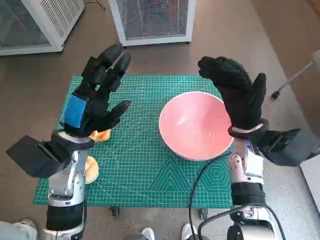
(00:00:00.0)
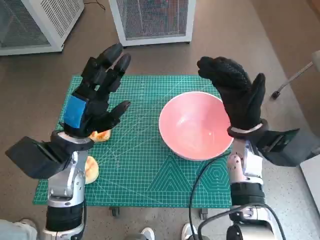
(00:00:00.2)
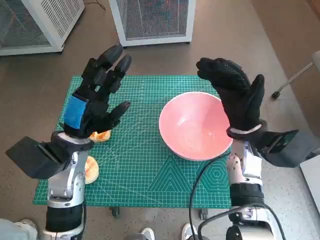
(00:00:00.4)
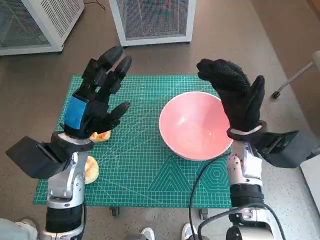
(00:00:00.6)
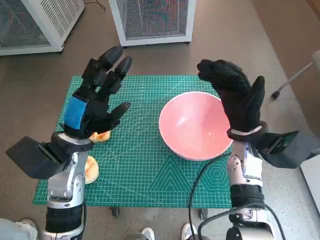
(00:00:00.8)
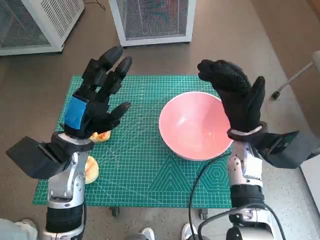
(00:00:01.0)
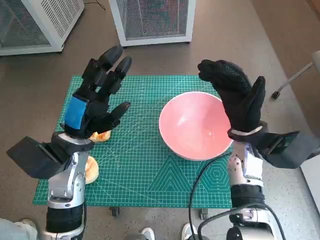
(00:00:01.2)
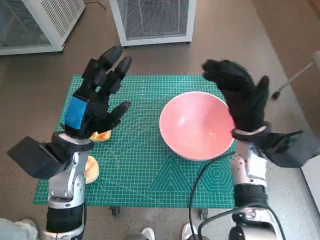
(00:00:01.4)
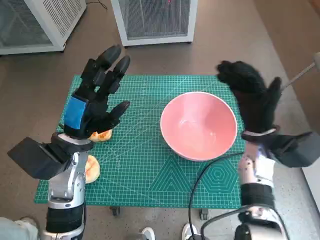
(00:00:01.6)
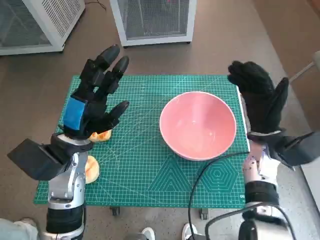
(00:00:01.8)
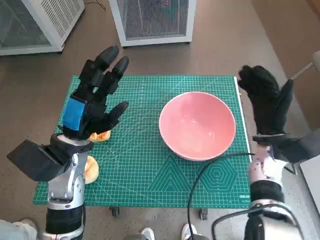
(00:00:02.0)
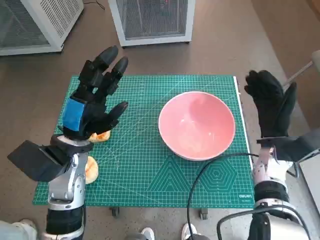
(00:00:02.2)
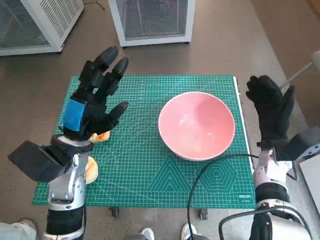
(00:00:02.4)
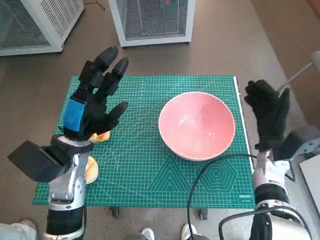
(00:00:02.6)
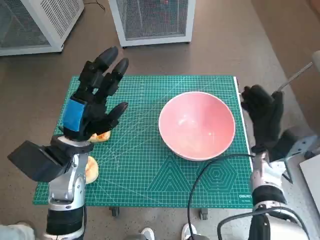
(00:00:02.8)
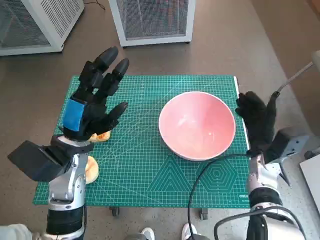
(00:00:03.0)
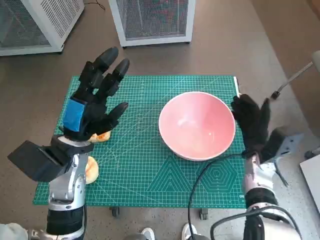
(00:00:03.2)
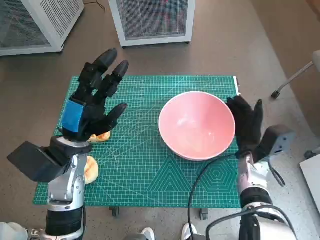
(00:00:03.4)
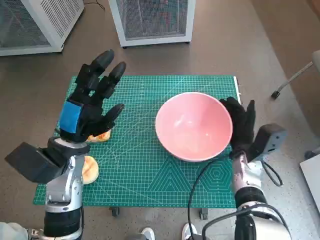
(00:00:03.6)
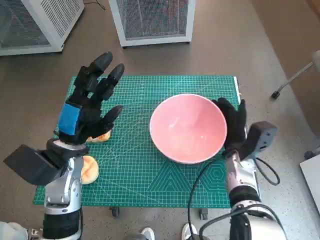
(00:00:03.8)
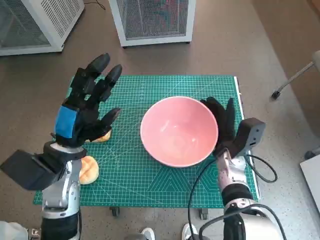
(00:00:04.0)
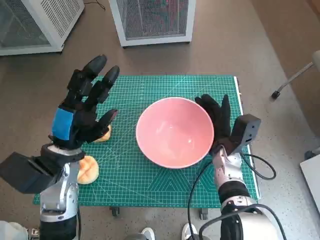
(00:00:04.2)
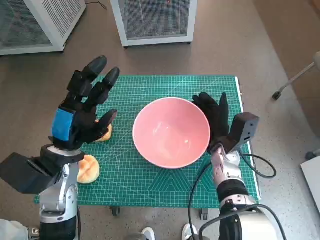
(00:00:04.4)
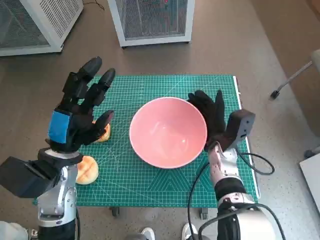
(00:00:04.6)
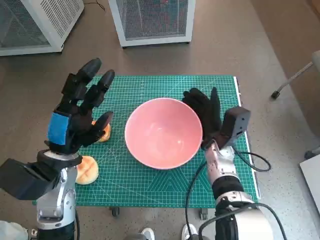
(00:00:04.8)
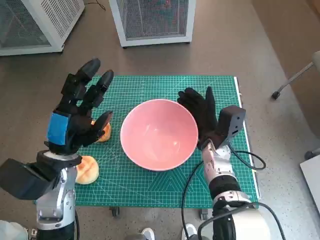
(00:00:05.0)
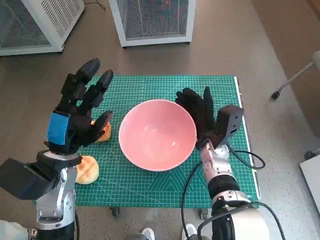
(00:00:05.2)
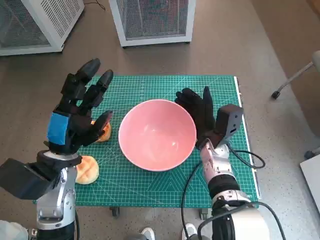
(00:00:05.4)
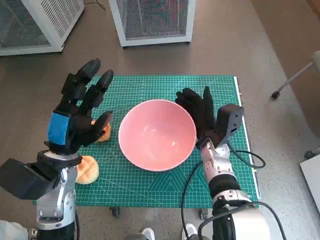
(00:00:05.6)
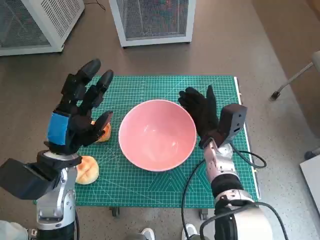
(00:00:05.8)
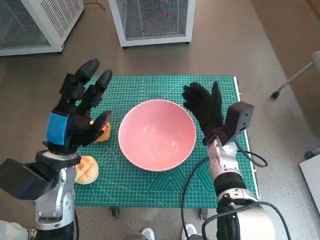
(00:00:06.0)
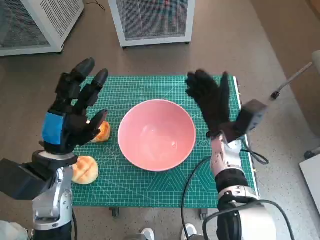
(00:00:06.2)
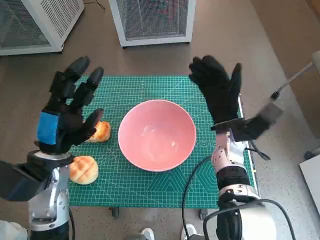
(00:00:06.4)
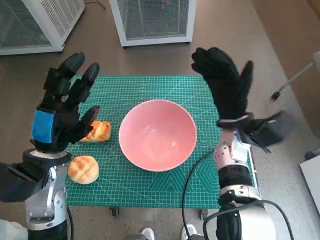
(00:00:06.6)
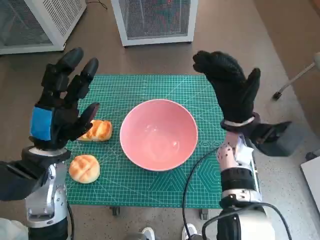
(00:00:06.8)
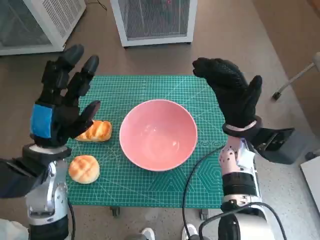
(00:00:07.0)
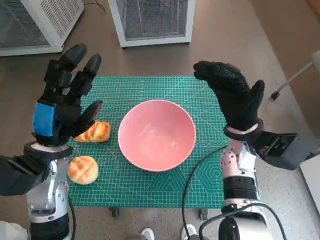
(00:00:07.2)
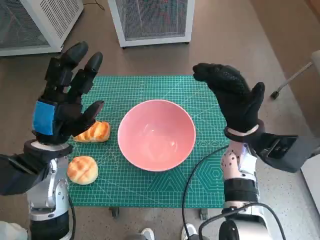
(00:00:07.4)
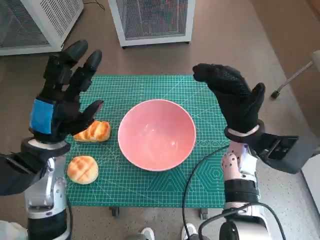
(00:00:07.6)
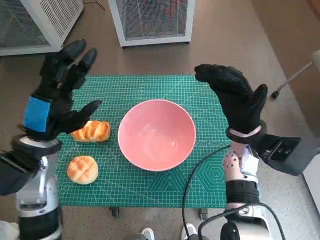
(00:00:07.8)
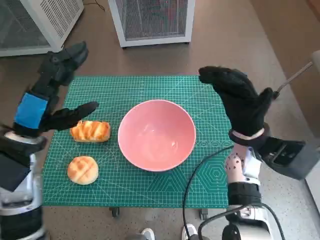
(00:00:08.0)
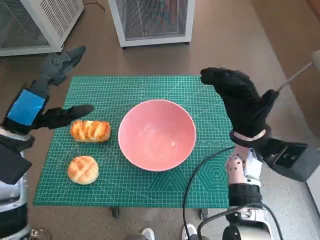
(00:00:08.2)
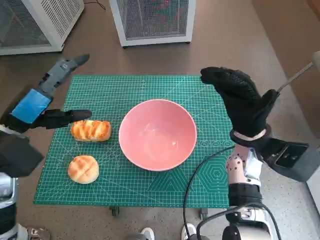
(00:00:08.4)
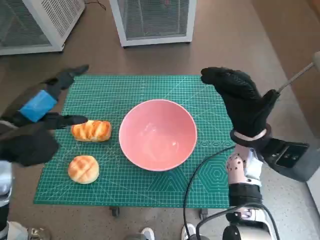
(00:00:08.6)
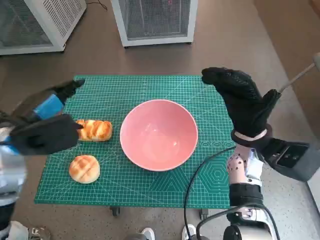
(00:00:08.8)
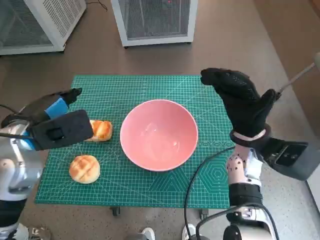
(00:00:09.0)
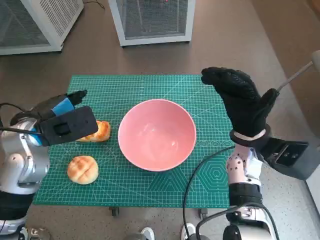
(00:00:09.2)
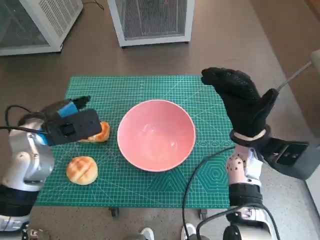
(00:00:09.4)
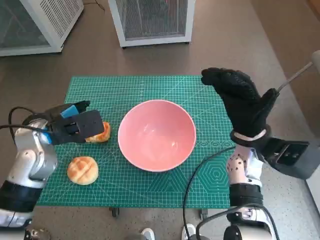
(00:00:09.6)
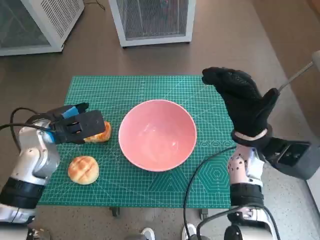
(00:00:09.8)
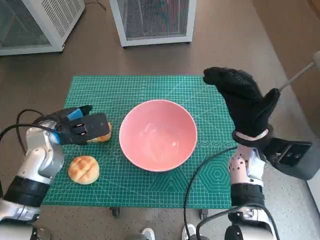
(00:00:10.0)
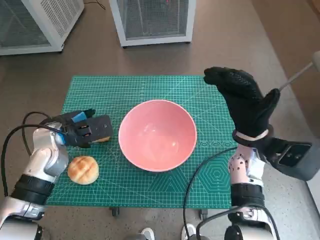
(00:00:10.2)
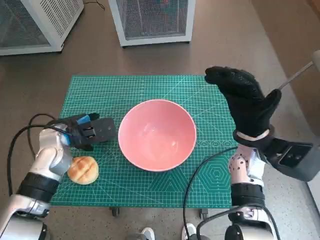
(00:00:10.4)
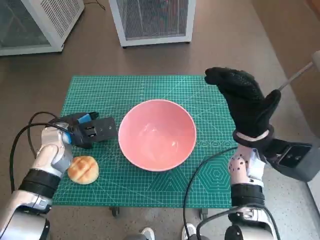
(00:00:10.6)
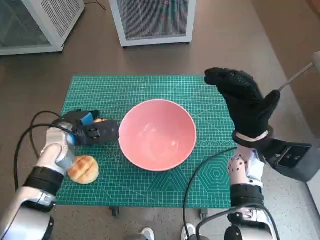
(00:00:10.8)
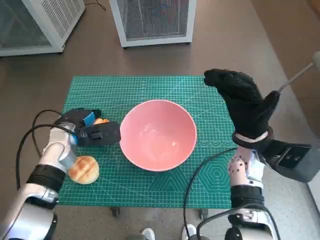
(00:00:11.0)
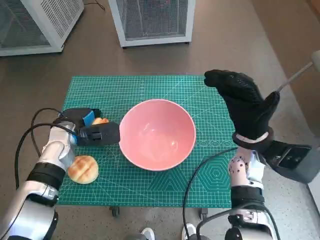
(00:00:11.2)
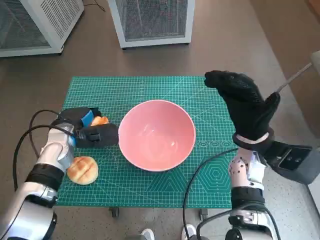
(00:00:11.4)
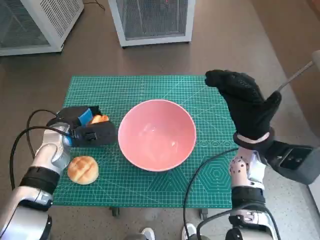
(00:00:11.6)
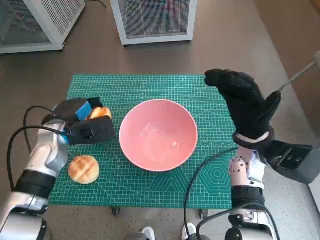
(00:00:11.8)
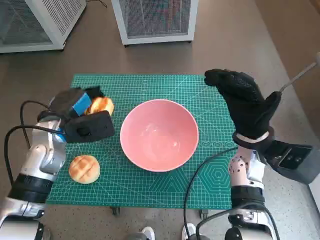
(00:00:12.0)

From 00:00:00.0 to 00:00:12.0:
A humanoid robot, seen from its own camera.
Task of the whole recording: Push the bowl into the center of the table and put the bread into the bowl.
Step, from 00:00:00.0 to 00:00:06.0: Move the pink bowl to the center of table with right hand.
Step, from 00:00:06.2 to 00:00:10.8: Grasp the long bread with left hand.
From 00:00:01.6 to 00:00:03.0: The right hand shifts about 5 cm downward.
From 00:00:03.0 to 00:00:04.4: The right hand travels to the left by roughly 10 cm.
From 00:00:06.0 to 00:00:07.6: The right hand goes approximately 5 cm upward.
From 00:00:07.6 to 00:00:09.0: The left hand moves approximately 5 cm.
From 00:00:09.0 to 00:00:10.4: The left hand heads downward, covering roughly 5 cm.

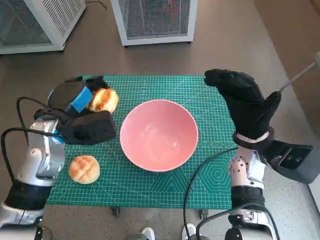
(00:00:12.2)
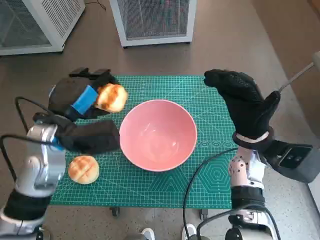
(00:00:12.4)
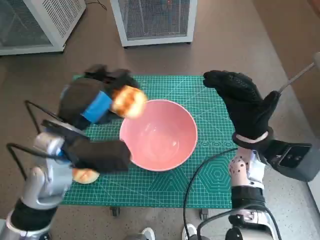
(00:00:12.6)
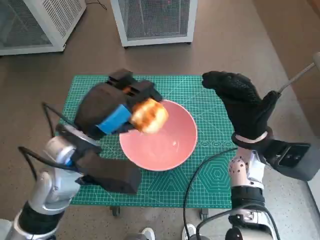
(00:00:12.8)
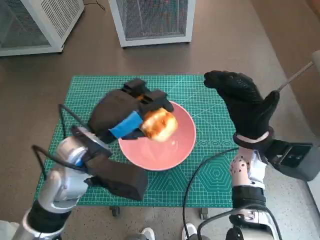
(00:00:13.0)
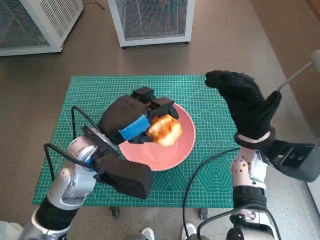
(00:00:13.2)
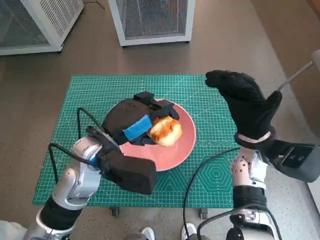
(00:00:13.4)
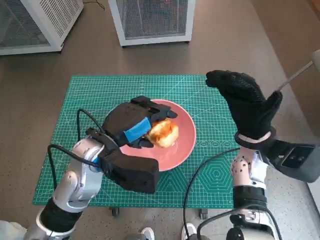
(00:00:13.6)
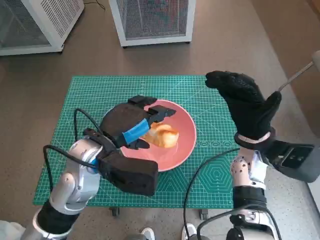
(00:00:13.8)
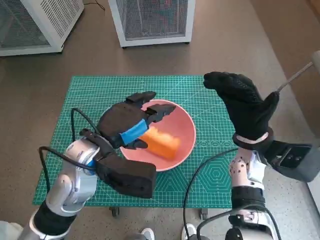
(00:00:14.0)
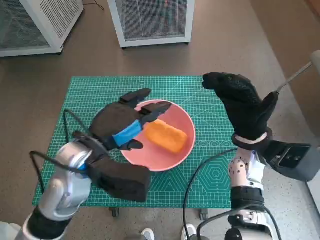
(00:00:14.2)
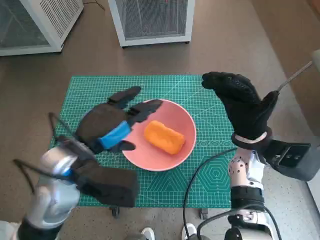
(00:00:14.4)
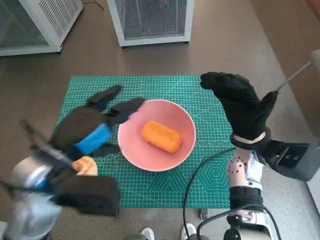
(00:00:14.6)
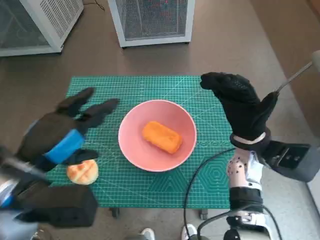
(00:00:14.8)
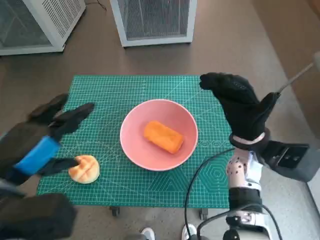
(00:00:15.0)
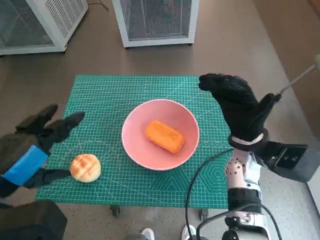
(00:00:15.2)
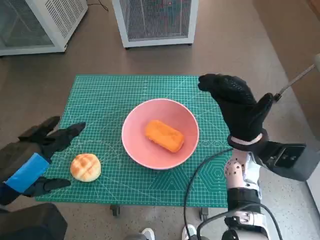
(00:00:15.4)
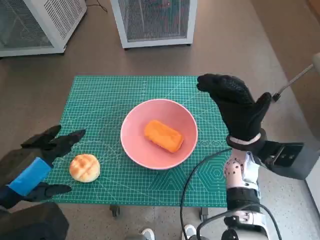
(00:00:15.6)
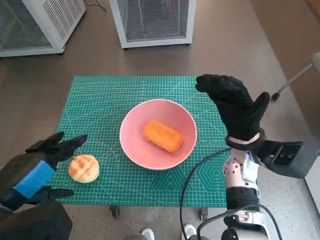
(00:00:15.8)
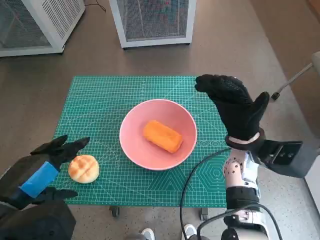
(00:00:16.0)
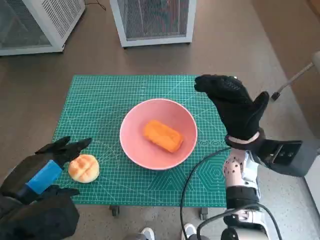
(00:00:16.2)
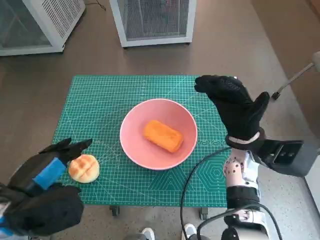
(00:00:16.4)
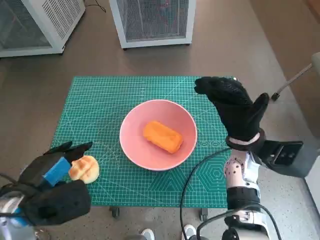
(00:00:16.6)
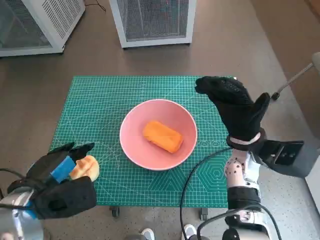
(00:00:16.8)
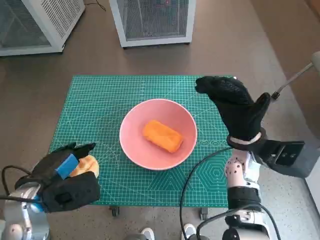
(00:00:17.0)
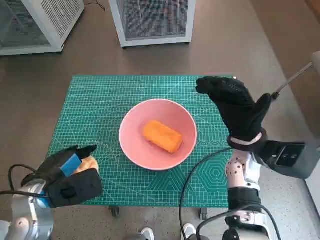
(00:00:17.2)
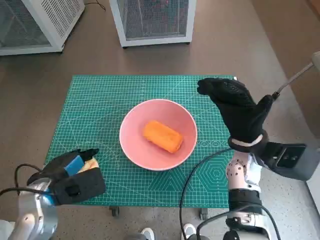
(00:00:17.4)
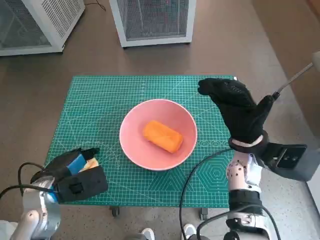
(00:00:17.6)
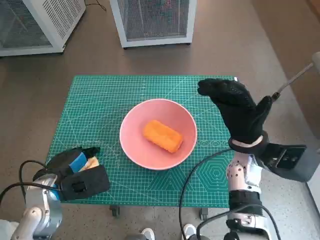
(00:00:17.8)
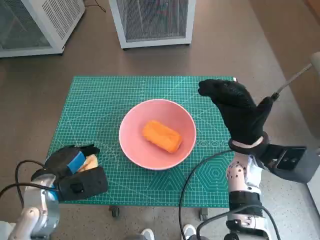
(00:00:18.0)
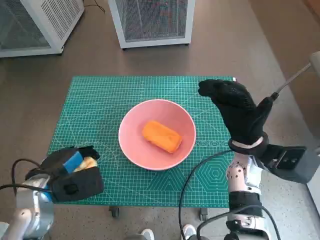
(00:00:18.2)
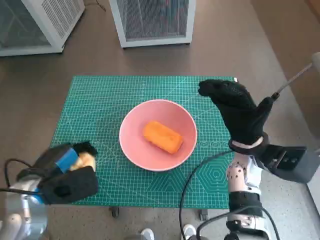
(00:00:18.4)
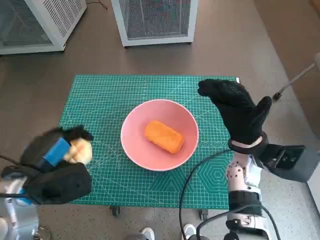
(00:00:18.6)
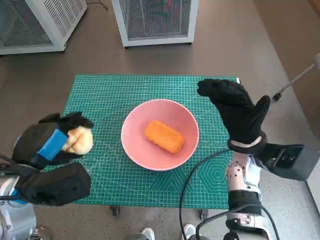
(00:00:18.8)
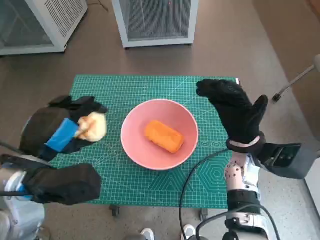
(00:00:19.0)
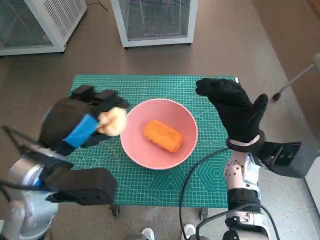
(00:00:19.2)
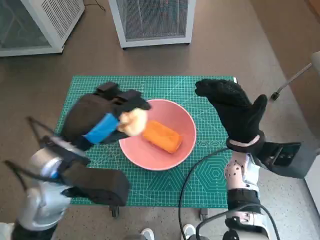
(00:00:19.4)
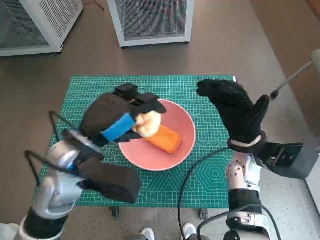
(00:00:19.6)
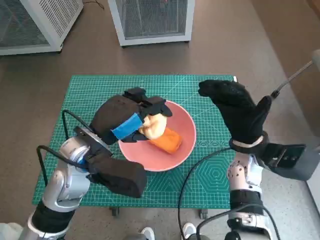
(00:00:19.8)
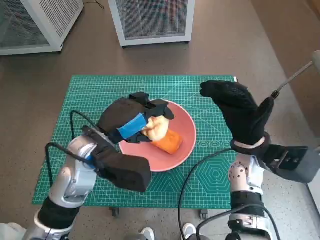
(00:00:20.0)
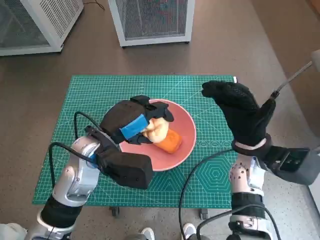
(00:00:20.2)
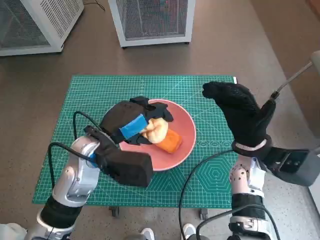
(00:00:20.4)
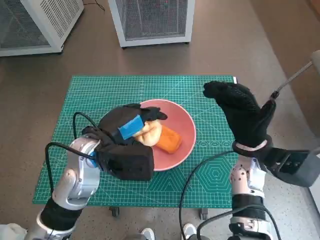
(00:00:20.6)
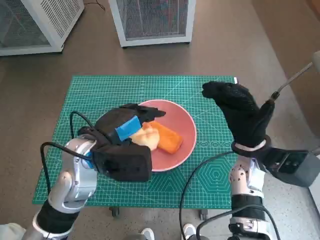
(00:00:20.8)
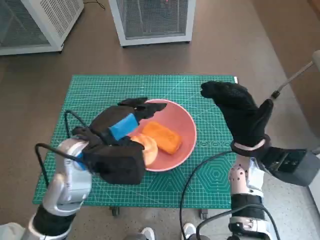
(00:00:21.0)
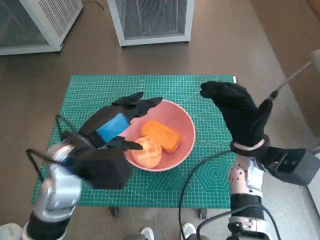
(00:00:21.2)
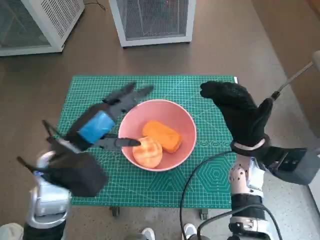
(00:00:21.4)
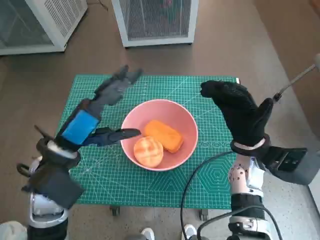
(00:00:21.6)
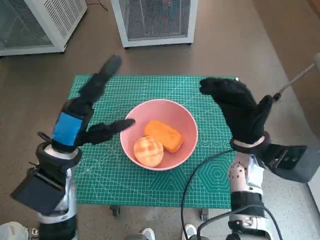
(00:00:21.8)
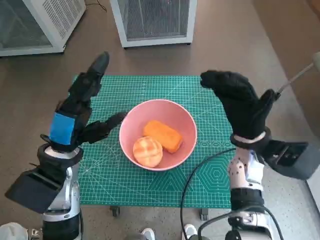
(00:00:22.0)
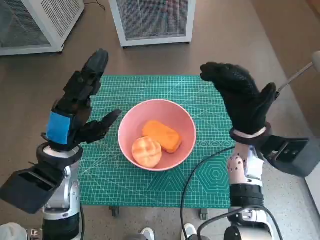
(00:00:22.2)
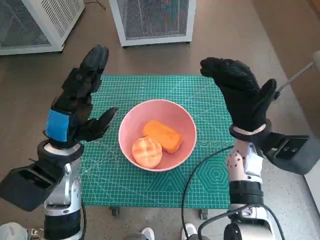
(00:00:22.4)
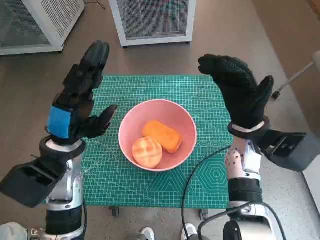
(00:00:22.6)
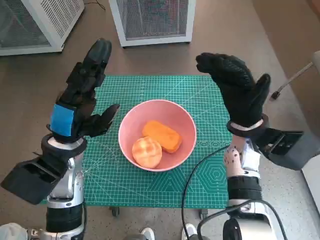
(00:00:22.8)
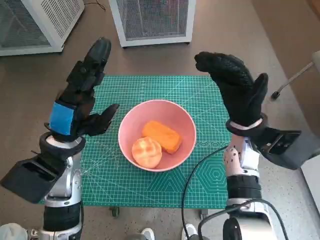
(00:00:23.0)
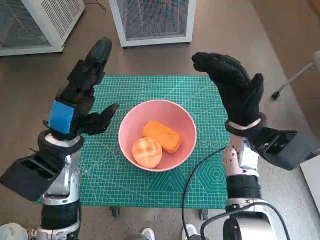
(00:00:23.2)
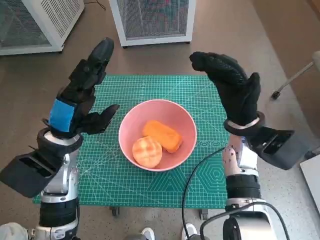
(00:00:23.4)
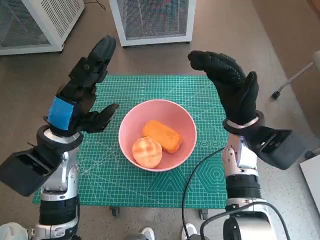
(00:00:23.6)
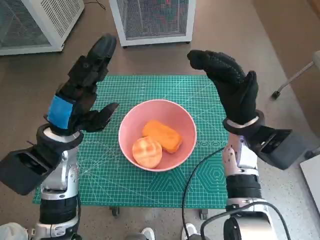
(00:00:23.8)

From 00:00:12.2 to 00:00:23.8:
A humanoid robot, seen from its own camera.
Task of the whole recording: Push the bowl into the center of the table and put the bread into the bowl.
Step, from 00:00:12.2 to 00:00:13.8: Place the long bread in pink bowl with left hand.
Step, from 00:00:14.0 to 00:00:17.6: Grasp the round bread with left hand.
Step, from 00:00:18.0 to 00:00:20.8: Place the round bread in pink bowl with left hand.
From 00:00:12.2 to 00:00:13.6: The left hand moves to the right, approximately 10 cm.
From 00:00:13.6 to 00:00:15.0: The left hand shifts some 15 cm backward, to the left and upward.
From 00:00:15.0 to 00:00:16.6: The left hand heads downward, covering about 5 cm.
From 00:00:16.6 to 00:00:18.0: The left hand moves downward, some 5 cm.
From 00:00:18.0 to 00:00:19.4: The left hand shifts about 15 cm upward and to the right.
From 00:00:21.0 to 00:00:22.4: The left hand shifts by about 5 cm.
From 00:00:22.4 to 00:00:23.8: The hands stay close to where they were, moving slightly.
